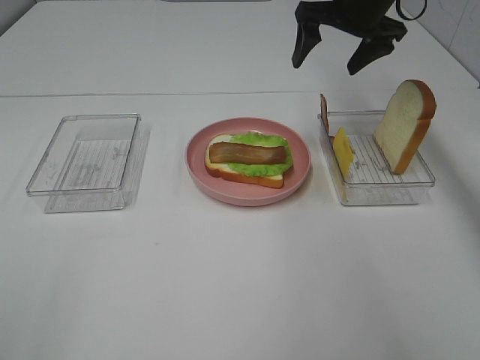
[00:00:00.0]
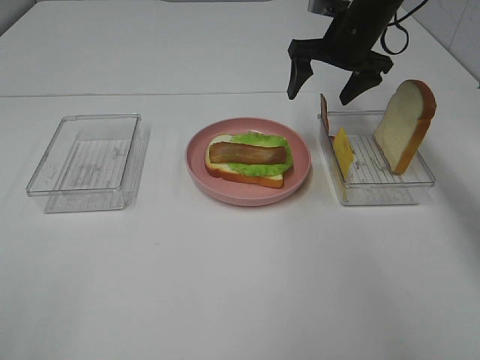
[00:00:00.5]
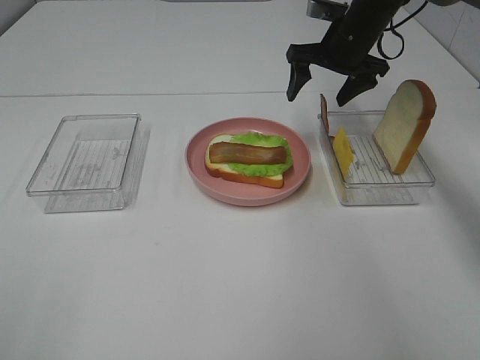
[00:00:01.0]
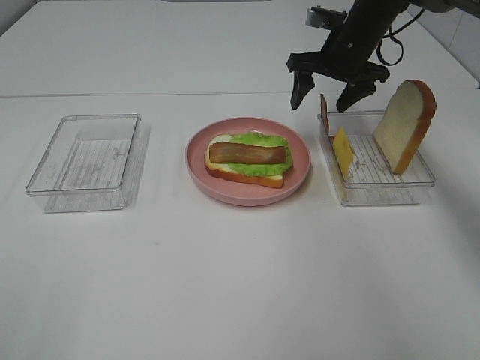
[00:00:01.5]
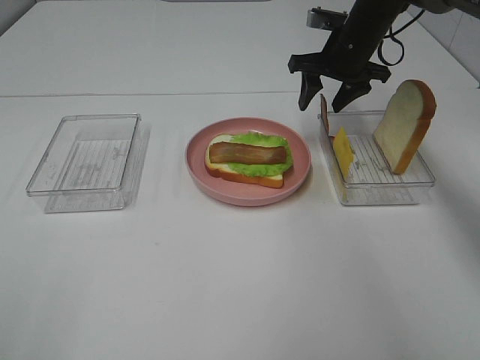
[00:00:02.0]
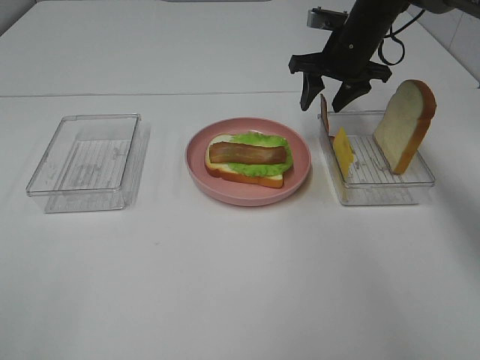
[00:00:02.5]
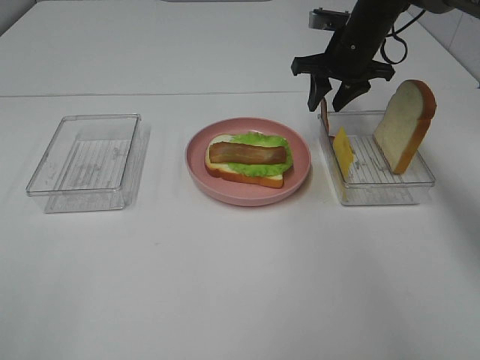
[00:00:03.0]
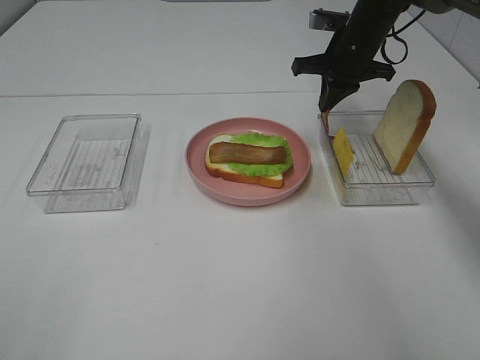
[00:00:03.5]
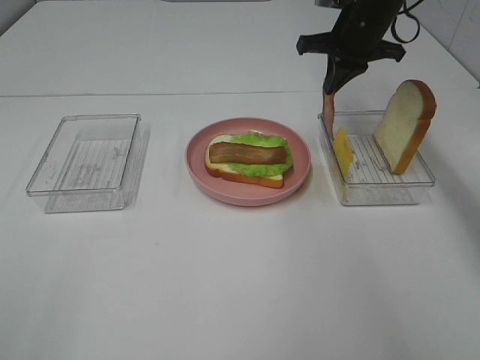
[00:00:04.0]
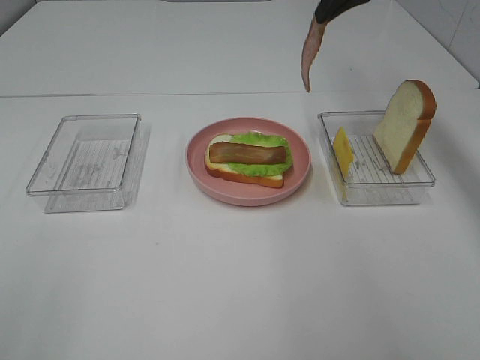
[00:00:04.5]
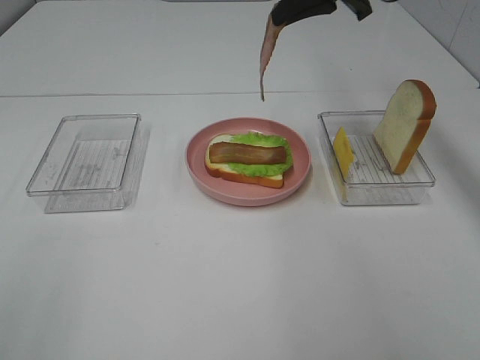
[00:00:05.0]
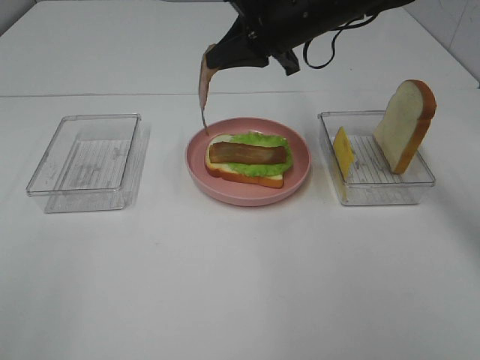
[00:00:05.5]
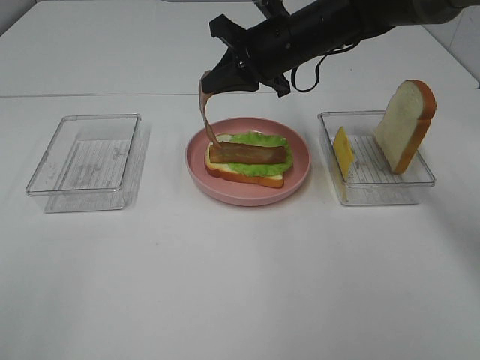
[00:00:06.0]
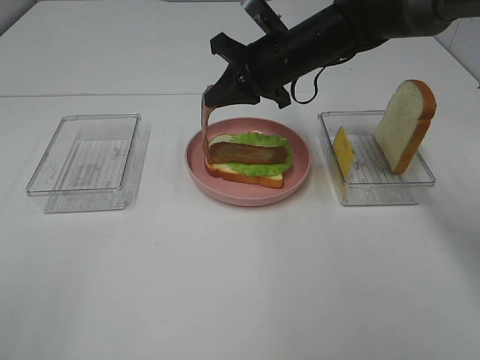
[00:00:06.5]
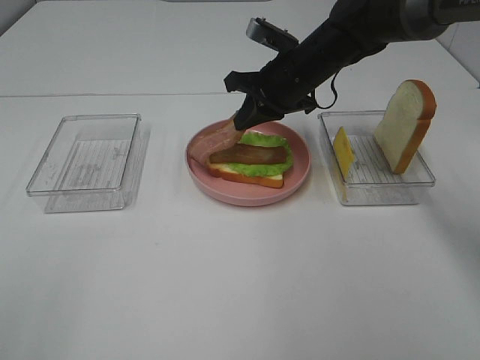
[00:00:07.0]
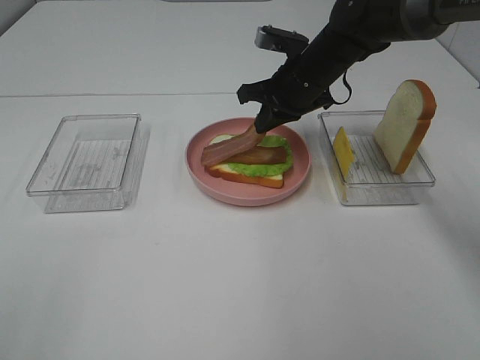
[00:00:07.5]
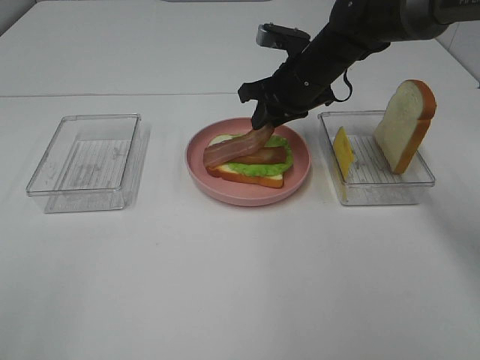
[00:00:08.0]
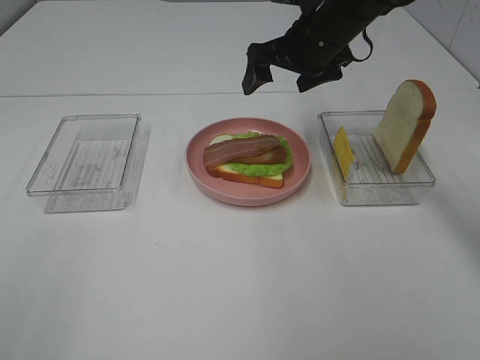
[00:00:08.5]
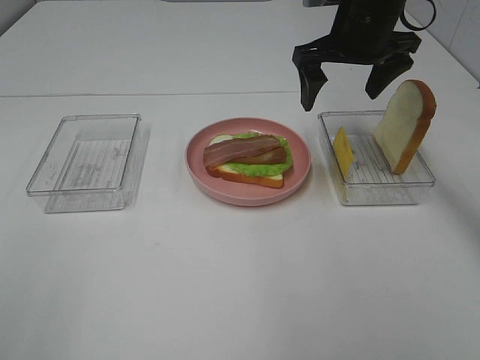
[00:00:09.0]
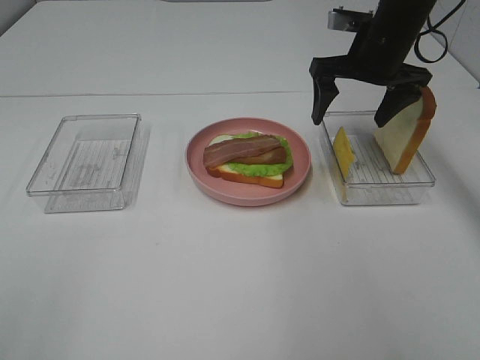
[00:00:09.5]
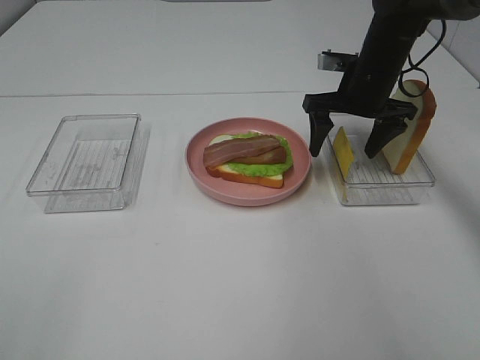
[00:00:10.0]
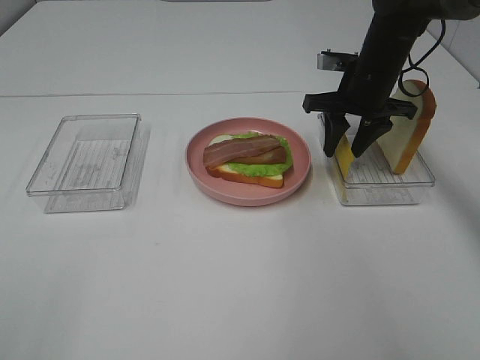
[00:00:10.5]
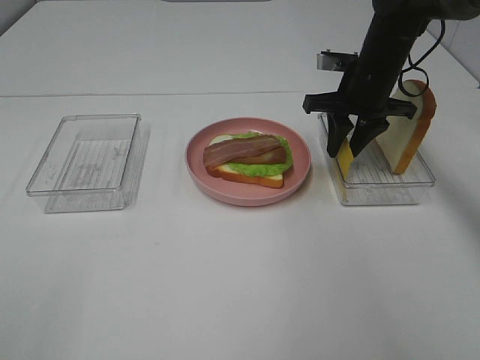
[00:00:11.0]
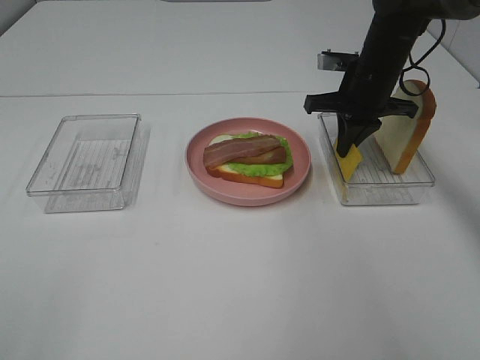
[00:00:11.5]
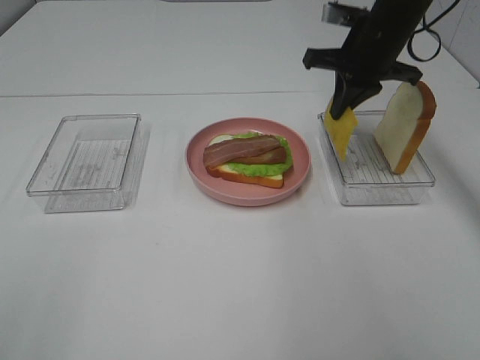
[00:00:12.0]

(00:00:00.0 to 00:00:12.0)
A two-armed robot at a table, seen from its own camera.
Task of the whole recording: Make sandwiches.
Step, 00:00:00.0 - 00:00:04.0: Right hand:grab the bacon.
Step, 00:00:04.5 - 00:00:08.5: Right hand:place bacon on lettuce slice.
Step, 00:00:09.0 - 00:00:11.0: Right hand:grab the cheese slice.
00:00:00.0 - 00:00:02.0: The right gripper moves downward, some 5 cm.
00:00:02.0 - 00:00:04.0: The right gripper closes.
00:00:04.0 - 00:00:06.0: The right gripper shifts approximately 10 cm to the left and backward, and goes upward and returns, some 10 cm each way.
00:00:06.0 - 00:00:08.0: The right gripper changes place by approximately 5 cm, and opens up.
00:00:08.0 - 00:00:10.0: The right gripper moves to the right, approximately 10 cm, moves about 10 cm upward and comes back, and opens.
00:00:10.0 - 00:00:12.0: The right gripper shifts approximately 5 cm upward, and closes its fingers.

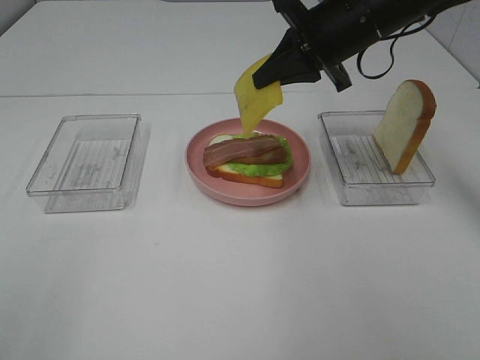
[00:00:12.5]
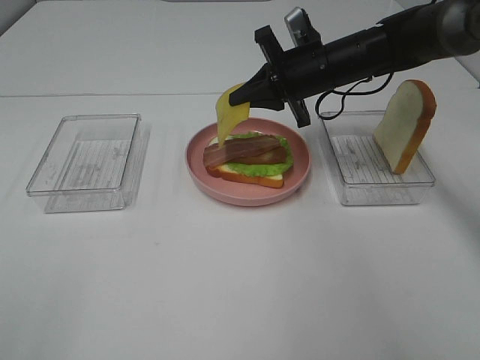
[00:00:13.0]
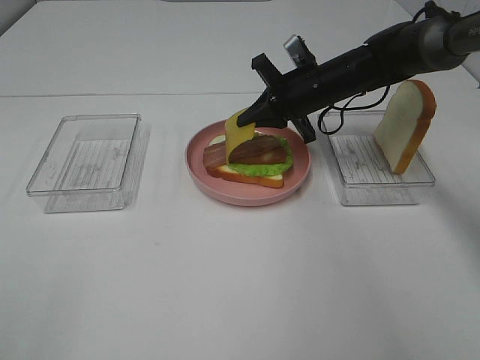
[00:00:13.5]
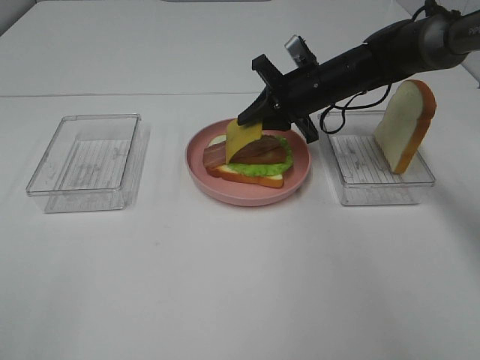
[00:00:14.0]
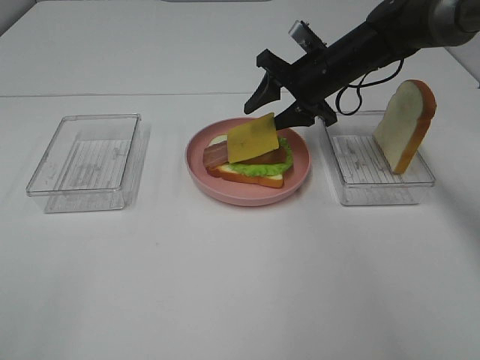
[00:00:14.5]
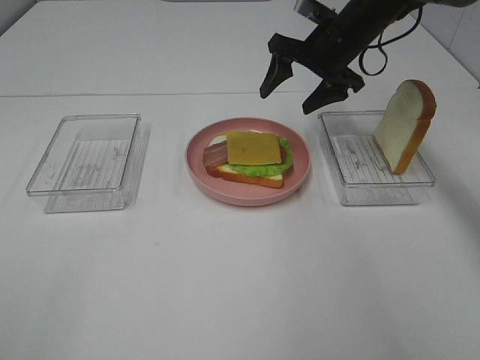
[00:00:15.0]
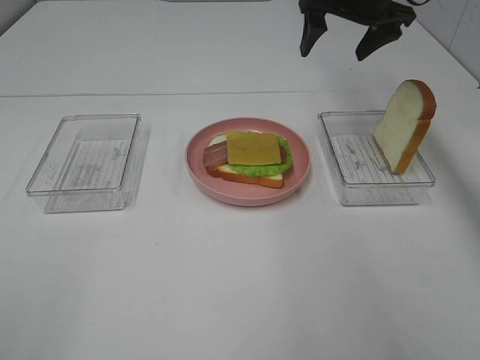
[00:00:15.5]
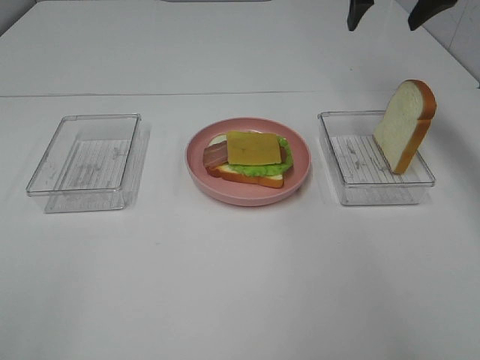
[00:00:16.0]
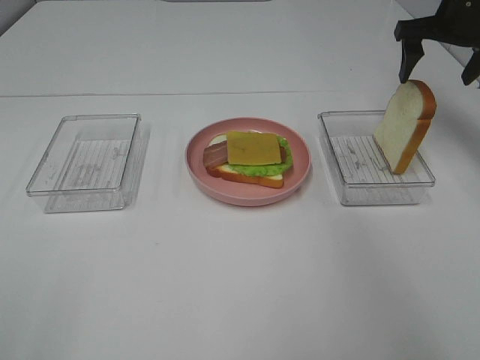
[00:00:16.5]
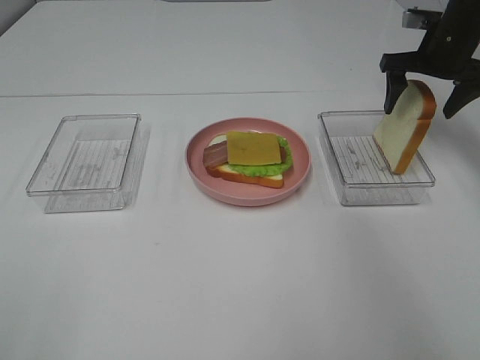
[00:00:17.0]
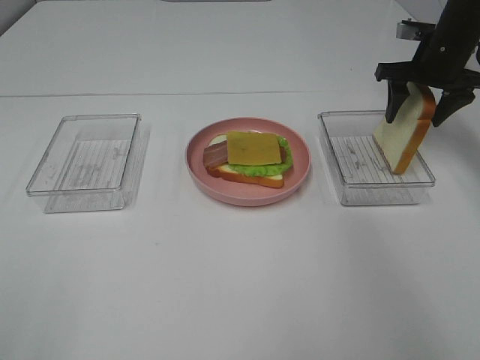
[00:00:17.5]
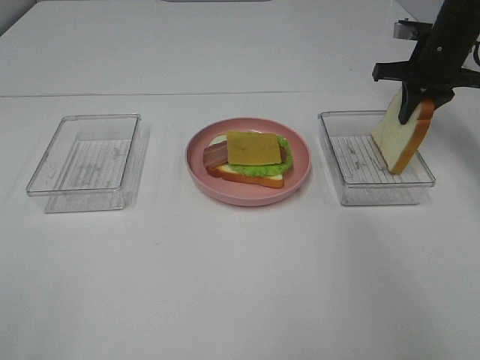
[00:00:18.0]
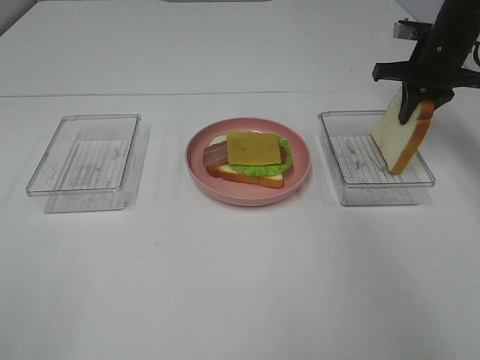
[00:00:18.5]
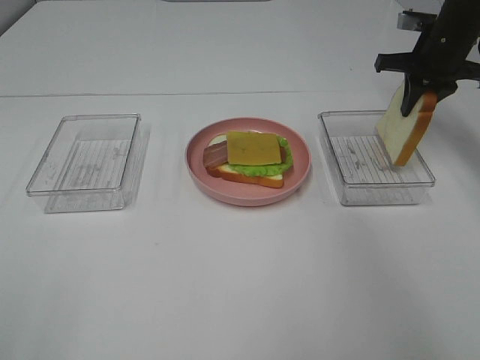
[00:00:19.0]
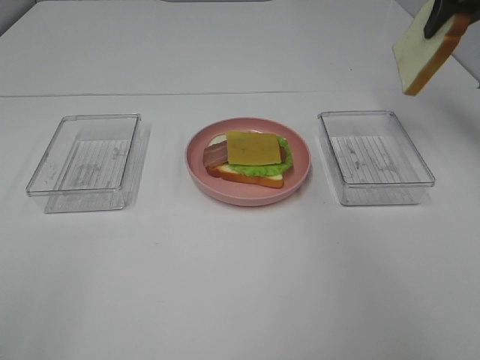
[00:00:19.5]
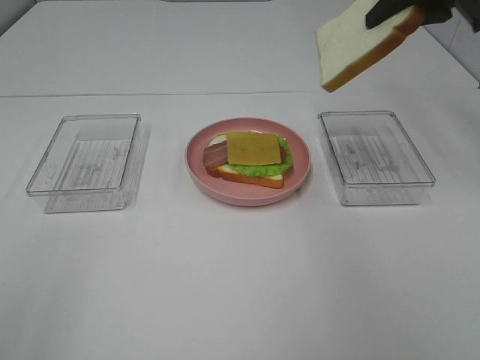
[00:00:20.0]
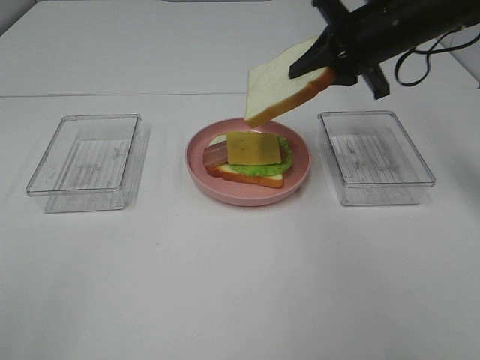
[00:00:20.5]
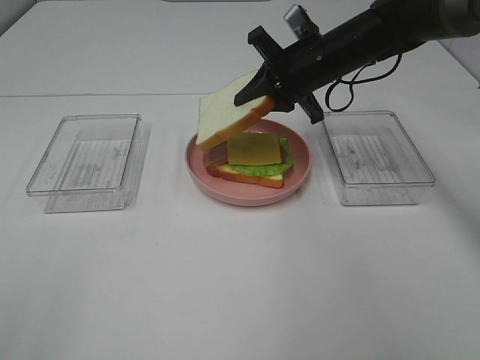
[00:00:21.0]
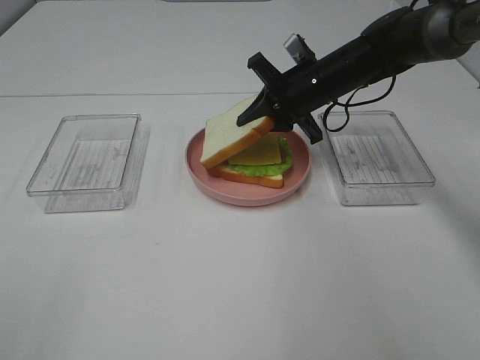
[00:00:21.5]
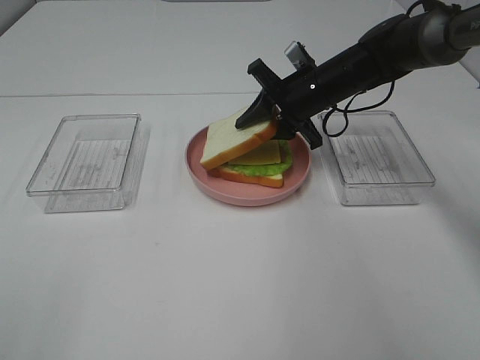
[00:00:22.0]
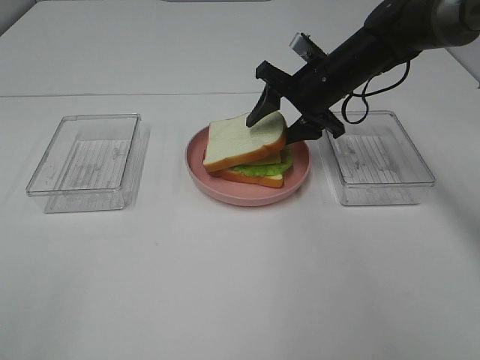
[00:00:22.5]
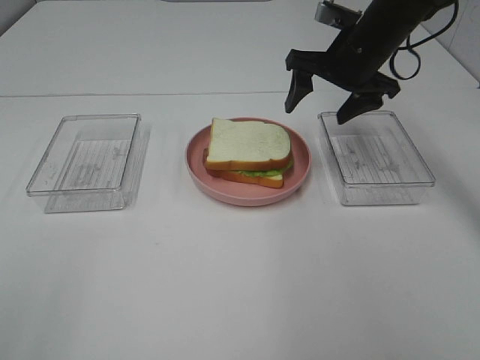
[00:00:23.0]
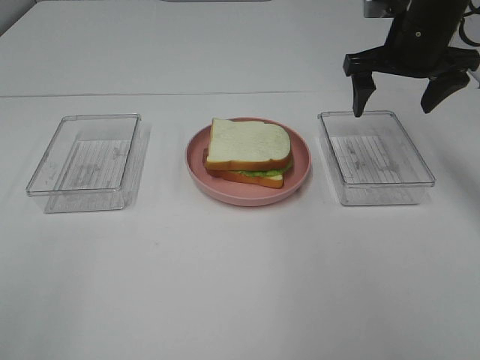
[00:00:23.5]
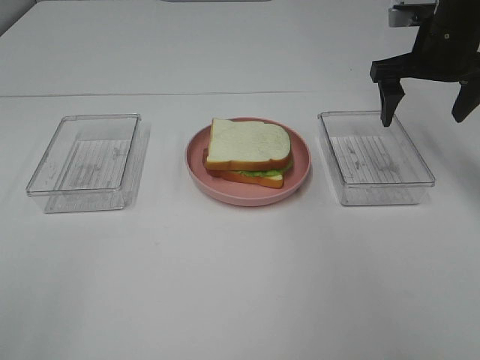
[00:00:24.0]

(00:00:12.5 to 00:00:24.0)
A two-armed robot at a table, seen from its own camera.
Task of the whole recording: Make sandwiches.
Step, 00:00:12.5 - 00:00:14.5: Right hand:place the cheese slice on top of the bacon.
Step, 00:00:15.0 - 00:00:18.0: Right hand:grab the bread slice.
Step, 00:00:18.5 - 00:00:22.5: Right hand:place the bread slice on the cheese slice.
00:00:12.5 - 00:00:14.5: The right gripper travels downward and forward by roughly 10 cm, and opens.
00:00:14.5 - 00:00:16.5: The right gripper is displaced to the right and upward by roughly 20 cm.
00:00:16.5 - 00:00:18.5: The right gripper shifts about 5 cm downward, and closes.
00:00:18.5 - 00:00:20.0: The right gripper heads upward and backward, covering roughly 15 cm.
00:00:20.0 - 00:00:22.0: The right gripper shifts about 20 cm downward and to the left.
00:00:22.0 - 00:00:24.0: The right gripper heads to the right and upward, covering roughly 15 cm, and opens up.

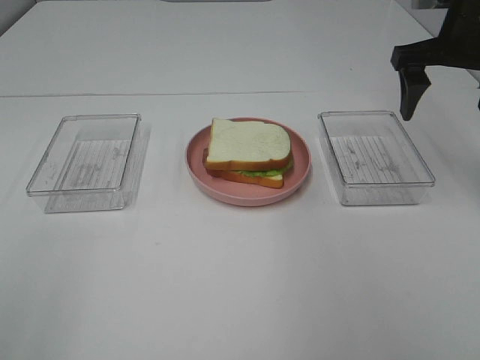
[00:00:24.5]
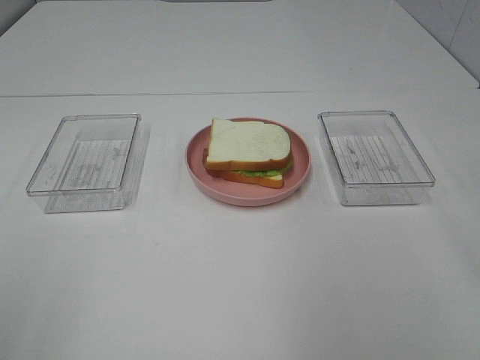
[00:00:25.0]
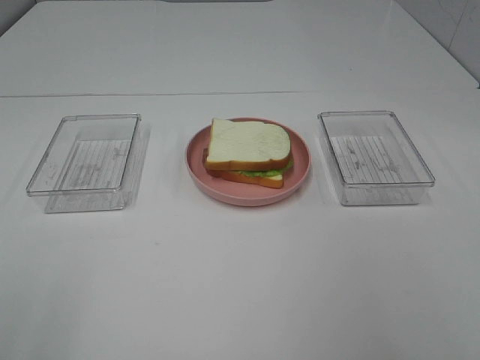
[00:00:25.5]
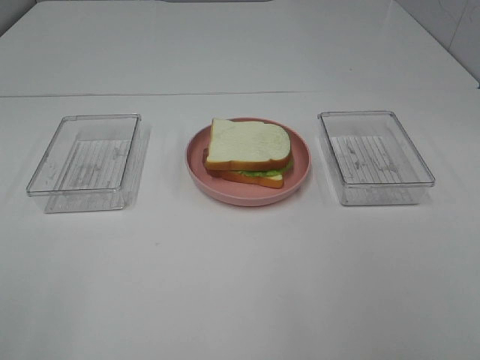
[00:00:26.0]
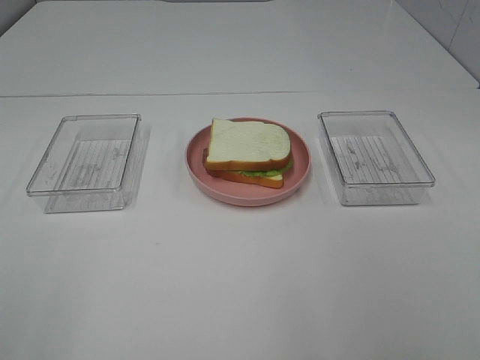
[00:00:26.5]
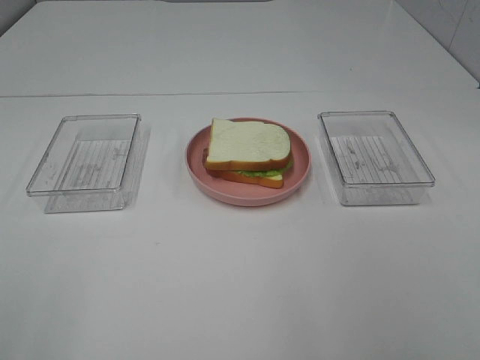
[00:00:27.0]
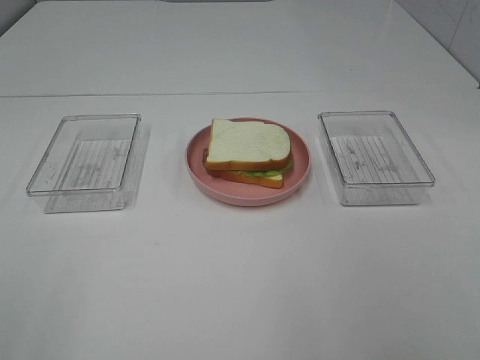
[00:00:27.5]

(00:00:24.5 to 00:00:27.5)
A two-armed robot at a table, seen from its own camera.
Task of the whole recording: Make sandwiches.
00:00:24.5 - 00:00:26.0: The right gripper travels backward by approximately 40 cm.
00:00:26.0 - 00:00:27.5: Neither gripper changes place.
